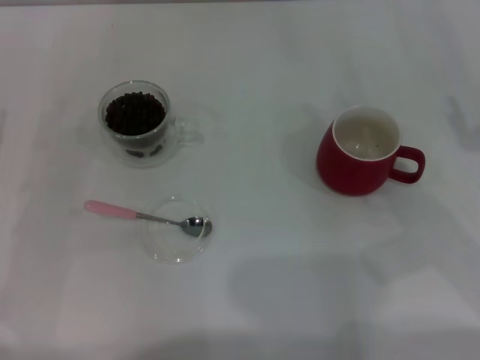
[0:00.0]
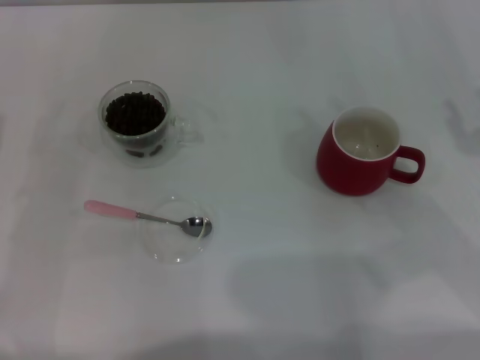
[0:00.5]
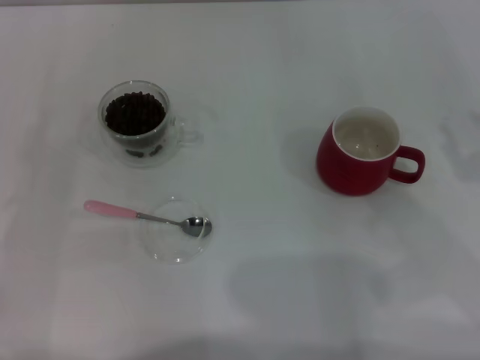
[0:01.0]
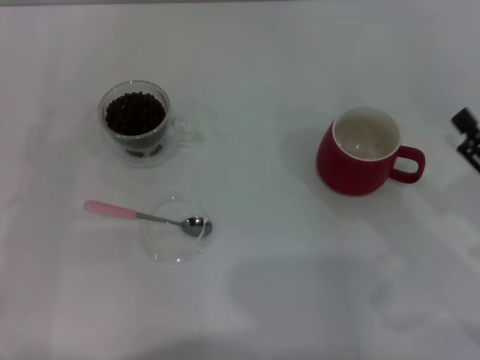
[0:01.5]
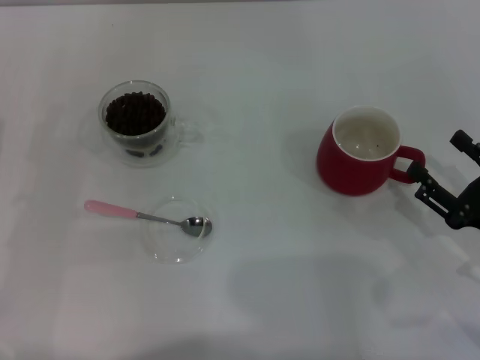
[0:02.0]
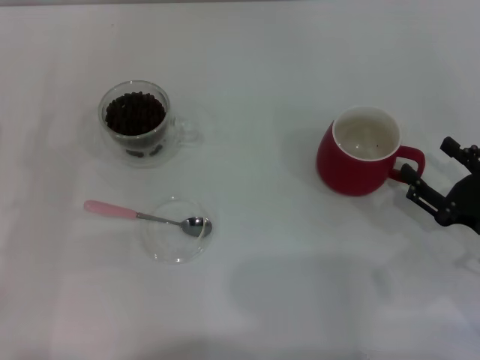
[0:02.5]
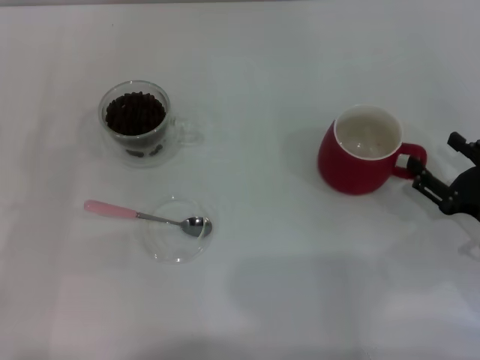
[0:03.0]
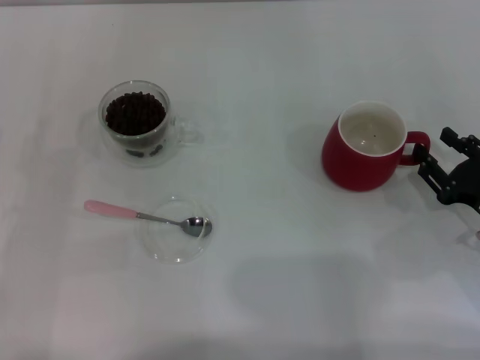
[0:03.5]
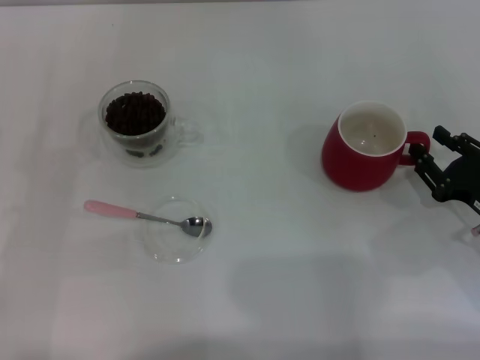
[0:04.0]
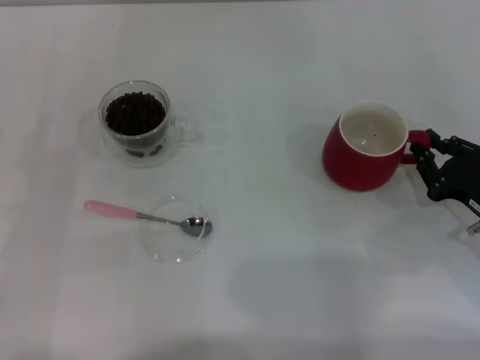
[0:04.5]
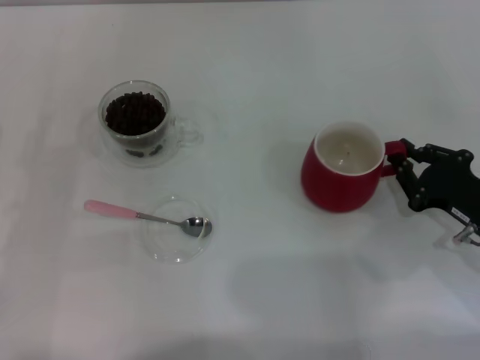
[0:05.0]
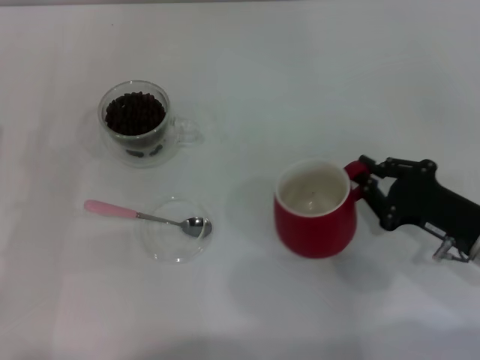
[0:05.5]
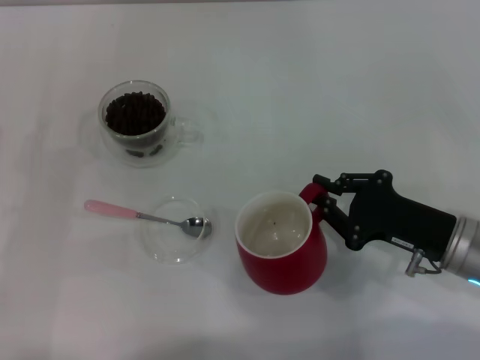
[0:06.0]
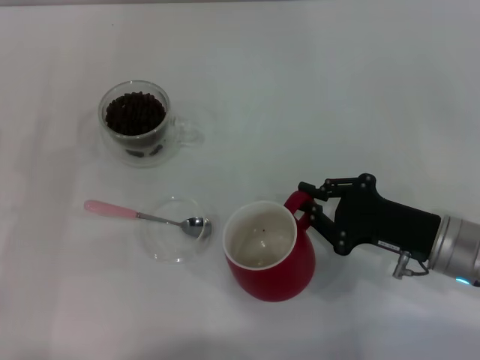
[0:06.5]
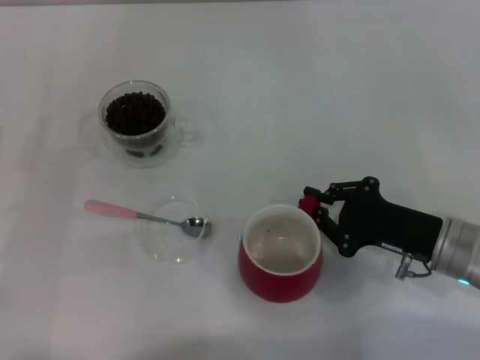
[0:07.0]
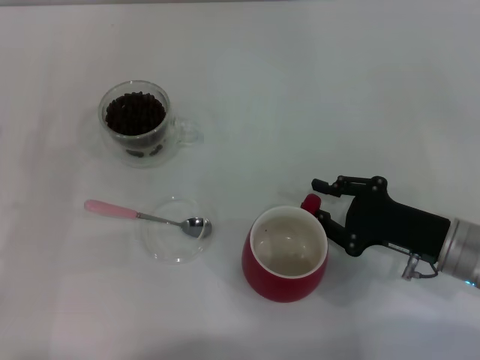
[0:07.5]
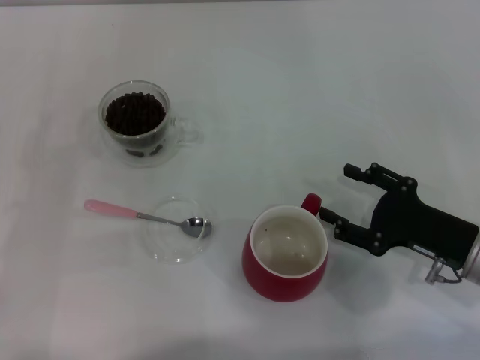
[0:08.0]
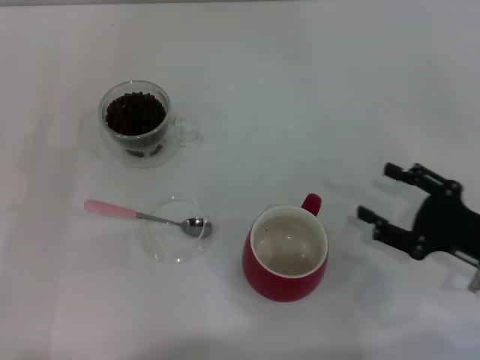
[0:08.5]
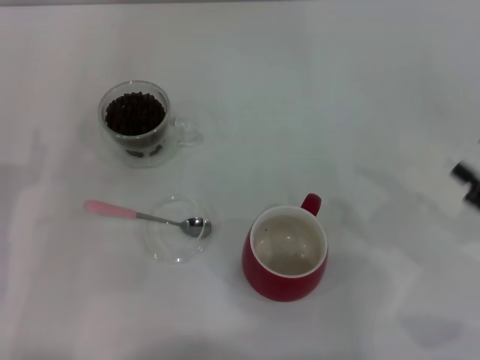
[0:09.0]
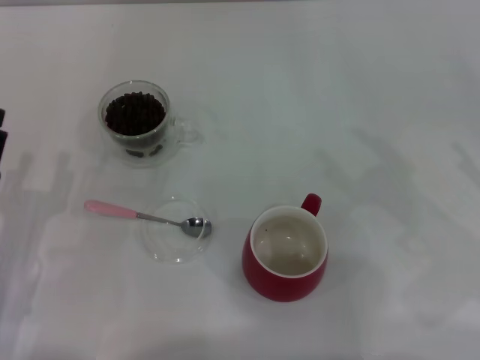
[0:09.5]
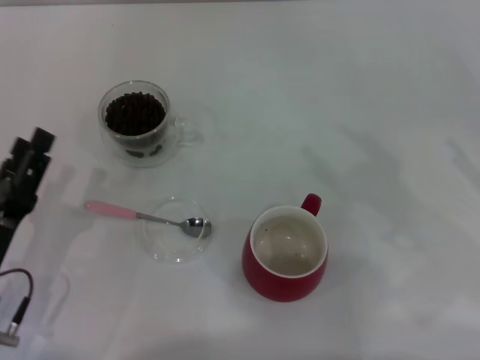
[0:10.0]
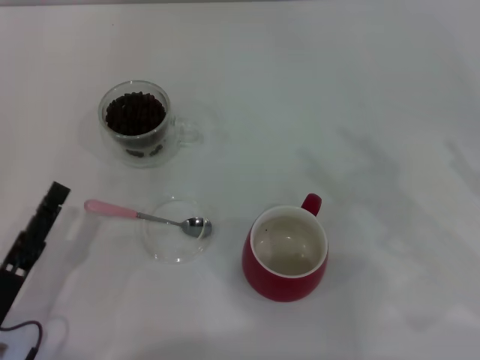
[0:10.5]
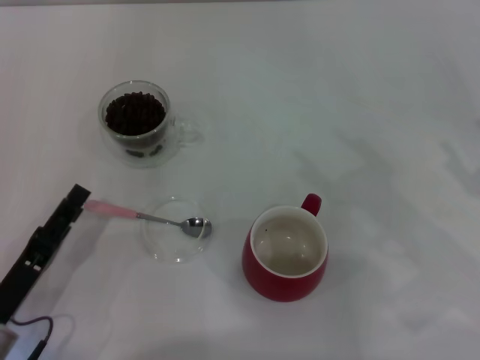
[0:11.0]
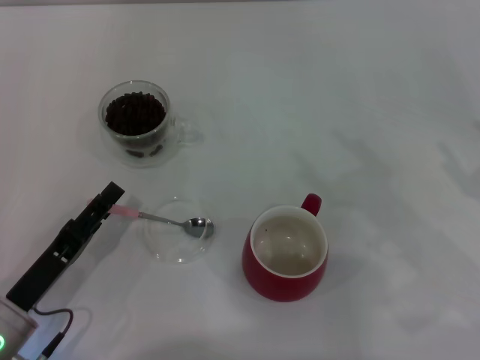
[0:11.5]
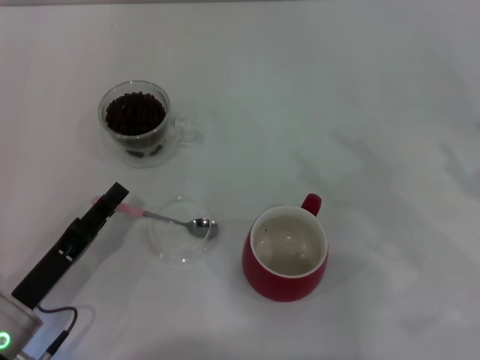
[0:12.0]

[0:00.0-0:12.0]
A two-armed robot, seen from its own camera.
Task of the whole recording: Use a pink spoon to take out the coffee beans from the glass and pour them into the red cup.
Step, 0:00.0 to 0:08.5: Move the cup to the center of view with the left gripper.
0:00.0 to 0:02.0: The right gripper travels downward and backward by about 10 cm, and opens its fingers.
0:02.0 to 0:04.0: The right gripper closes up.
0:04.0 to 0:06.0: The right gripper travels to the left by about 5 cm, and closes its fingers.
0:06.0 to 0:08.0: The right gripper opens.
0:08.0 to 0:10.0: The left gripper goes roughly 10 cm to the right and backward. The right gripper shifts some 10 cm to the right and upward.

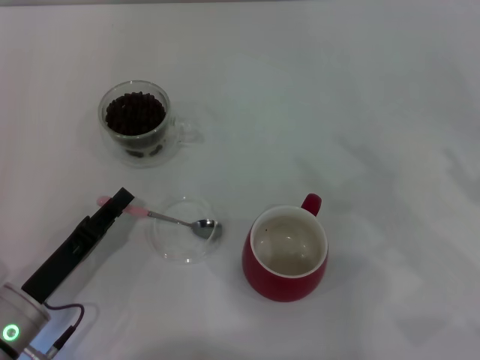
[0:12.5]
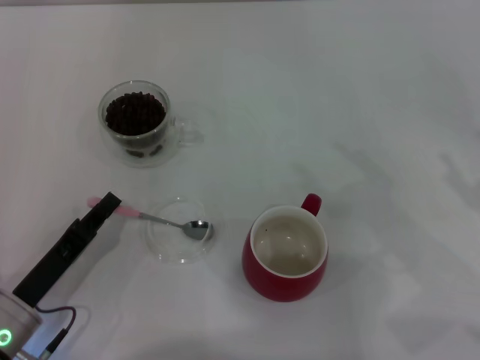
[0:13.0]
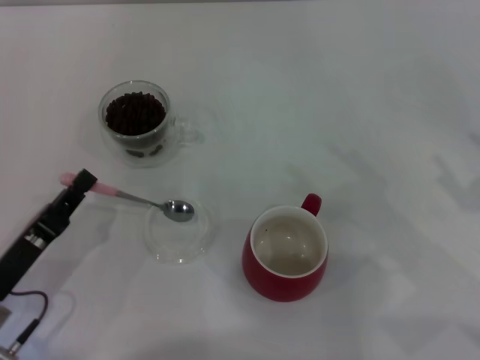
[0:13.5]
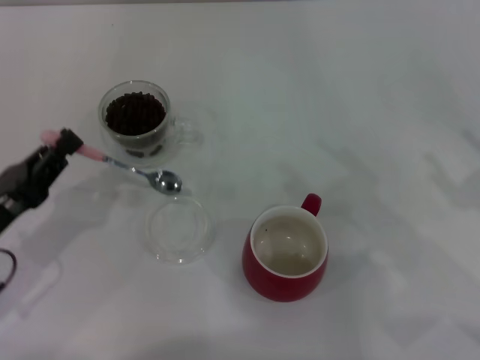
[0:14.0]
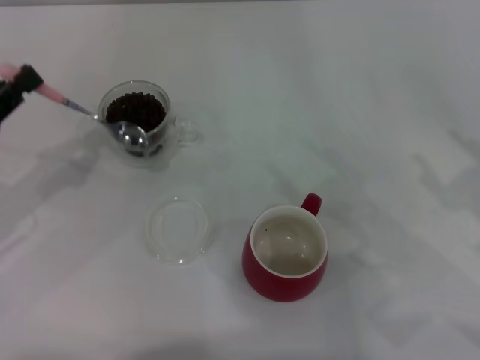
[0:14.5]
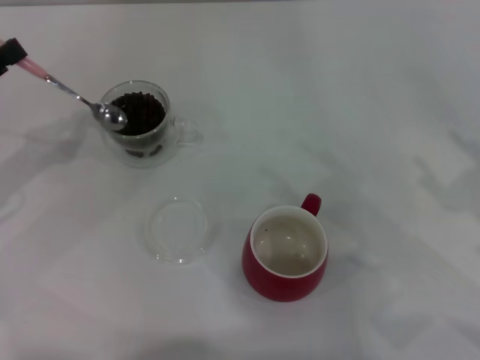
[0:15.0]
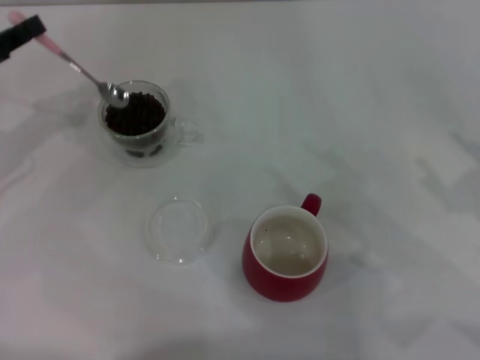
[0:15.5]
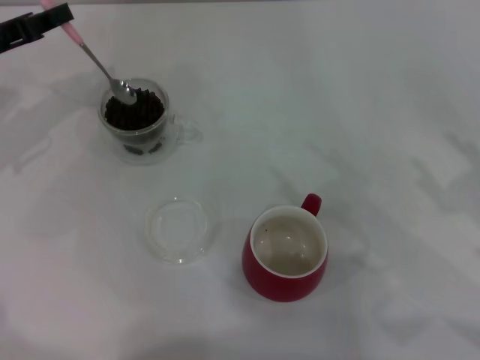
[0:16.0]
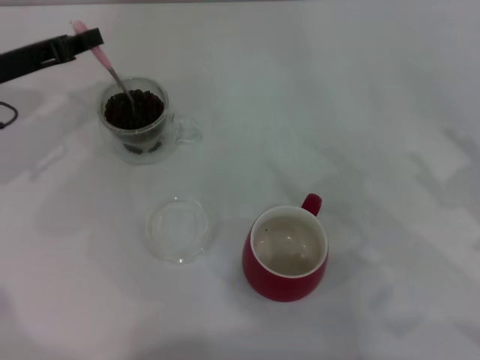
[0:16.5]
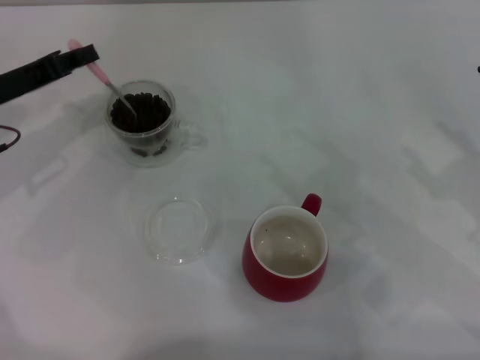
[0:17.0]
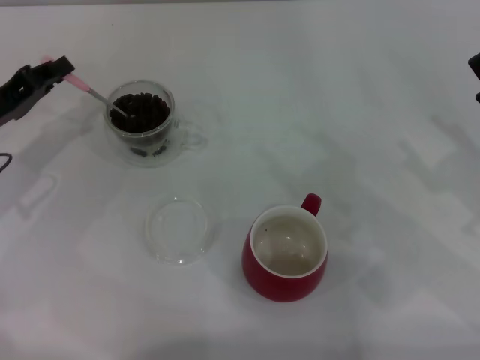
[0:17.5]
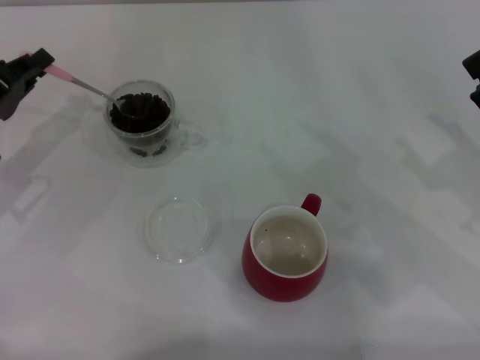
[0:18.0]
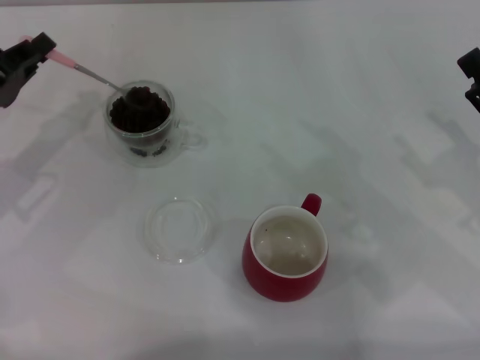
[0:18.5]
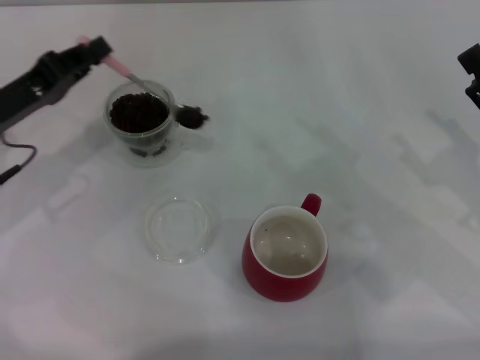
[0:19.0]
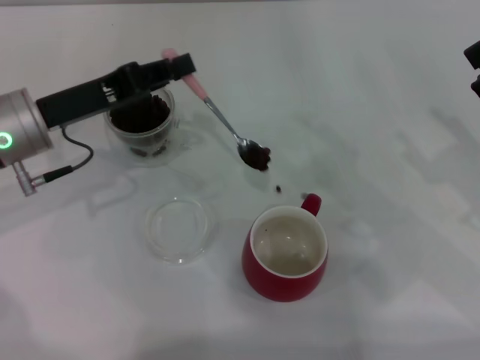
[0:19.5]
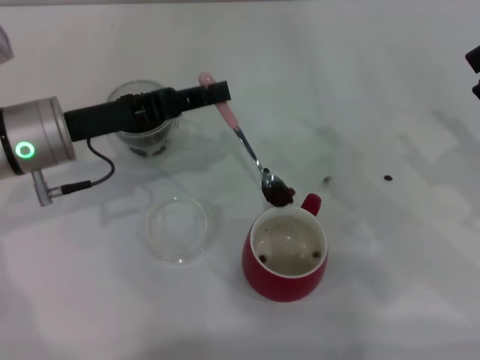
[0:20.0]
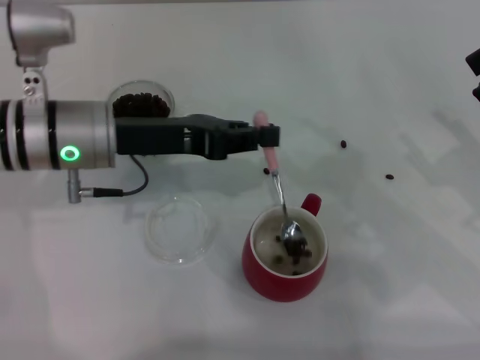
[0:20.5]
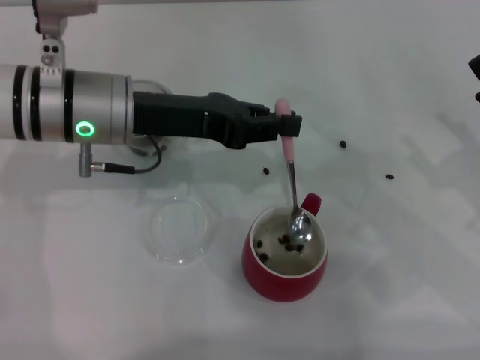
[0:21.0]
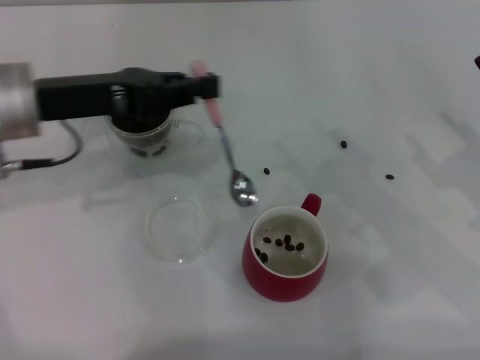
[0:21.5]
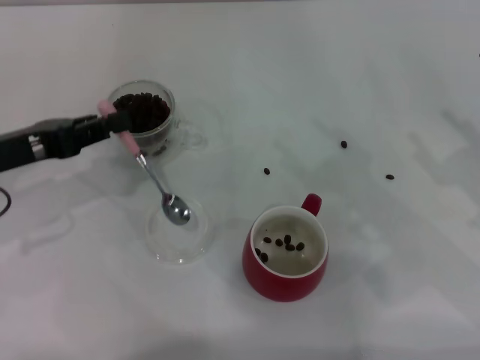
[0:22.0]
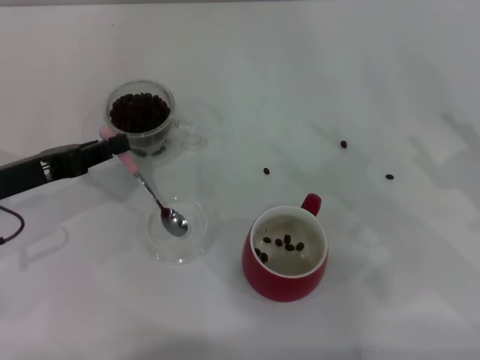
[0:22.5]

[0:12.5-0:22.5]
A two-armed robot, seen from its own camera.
Task of the whole recording: Use a pink spoon to take out the coffee beans from the glass and pour them into the red cup.
0:12.5 to 0:14.5: The left gripper is displaced upward, to the left and forward by some 15 cm, and closes its fingers.
0:14.5 to 0:16.5: The left gripper travels forward by roughly 10 cm.
0:16.5 to 0:18.5: The left gripper goes approximately 5 cm backward.
0:18.5 to 0:20.5: The left gripper shifts some 15 cm to the right.
0:20.5 to 0:22.5: The left gripper heads to the left, covering about 10 cm.

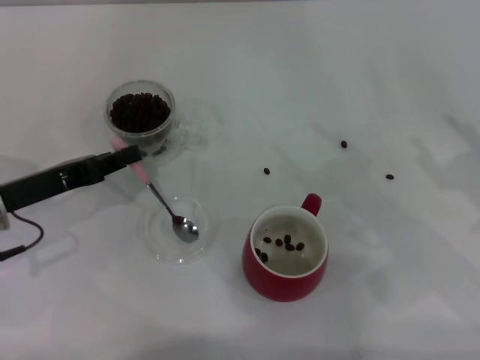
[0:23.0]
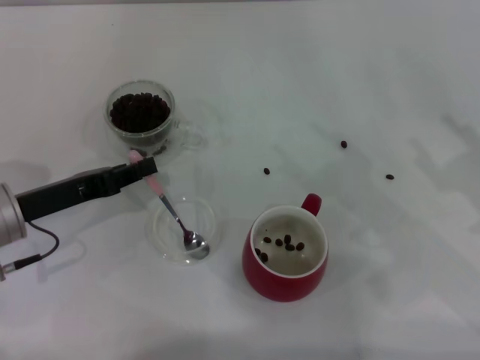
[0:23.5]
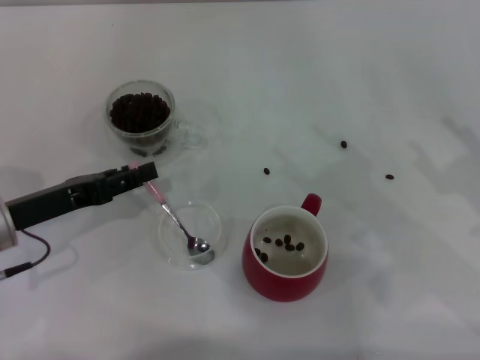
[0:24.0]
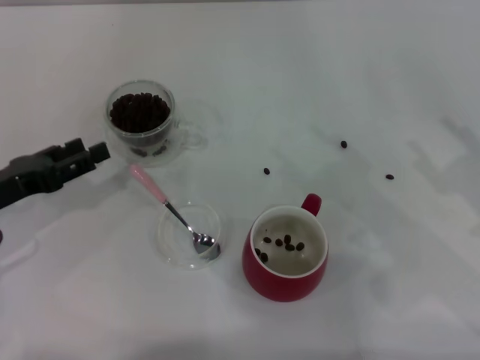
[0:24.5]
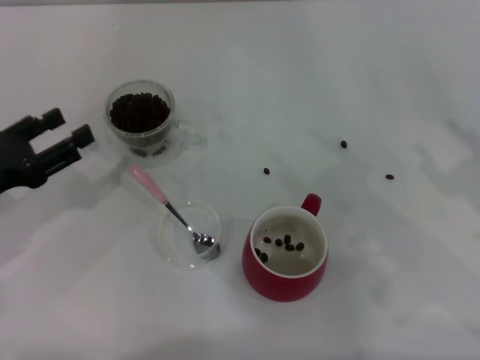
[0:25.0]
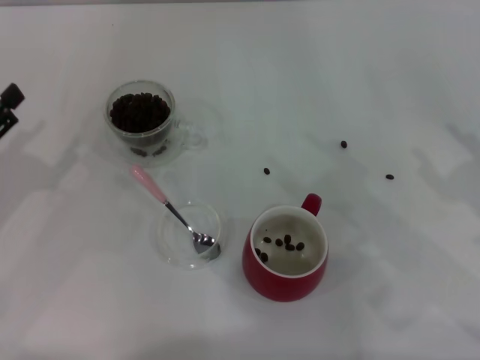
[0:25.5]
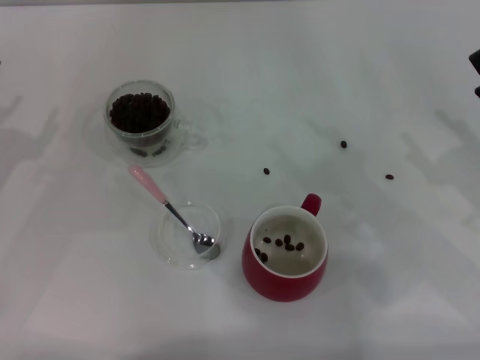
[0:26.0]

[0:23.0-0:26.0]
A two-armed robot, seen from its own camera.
Task of the whole recording: Use a pink spoon to take out the coffee beans from the glass and pour them into the red cup.
0:23.0 to 0:24.5: The left gripper opens up.
